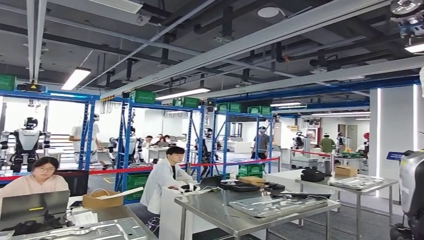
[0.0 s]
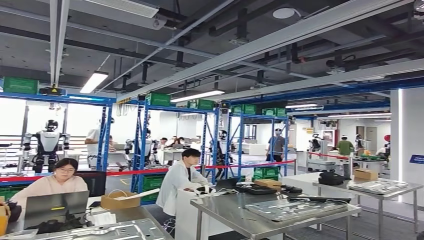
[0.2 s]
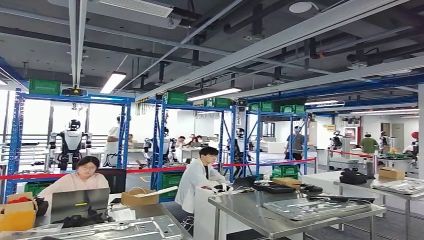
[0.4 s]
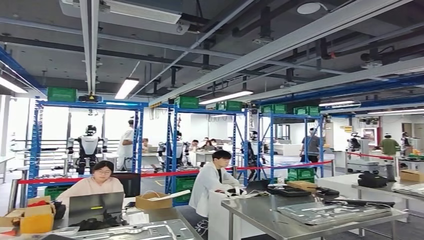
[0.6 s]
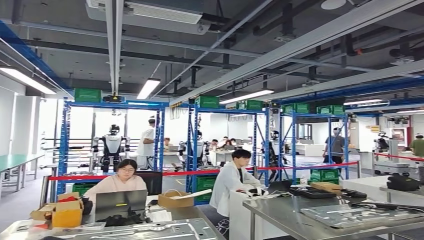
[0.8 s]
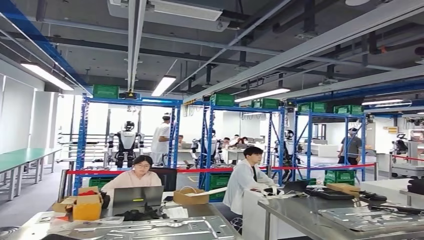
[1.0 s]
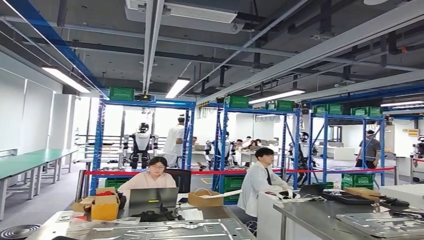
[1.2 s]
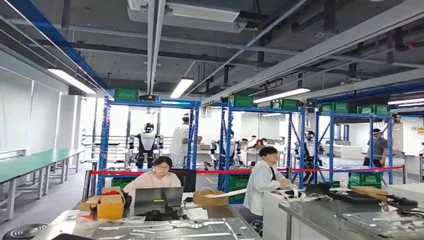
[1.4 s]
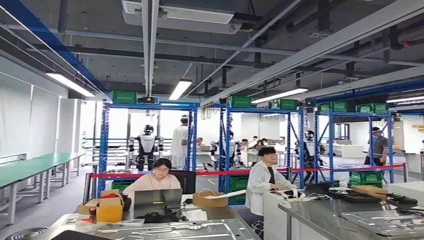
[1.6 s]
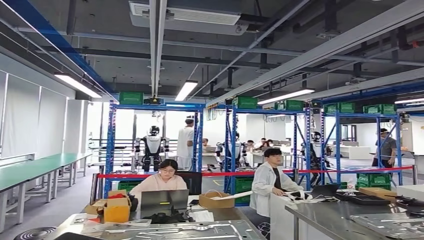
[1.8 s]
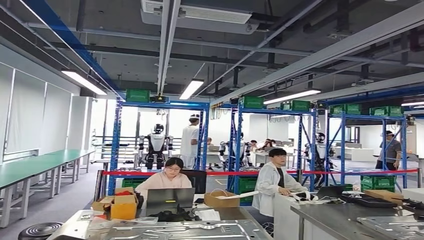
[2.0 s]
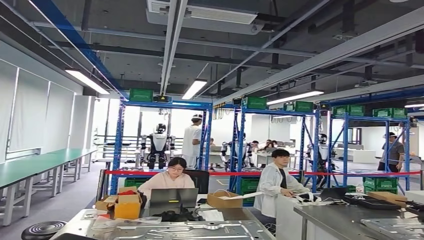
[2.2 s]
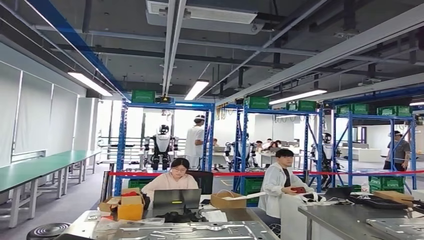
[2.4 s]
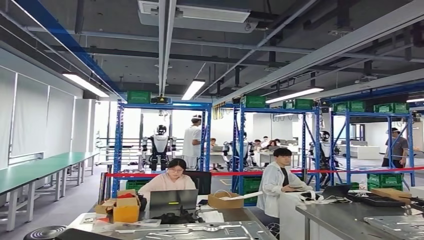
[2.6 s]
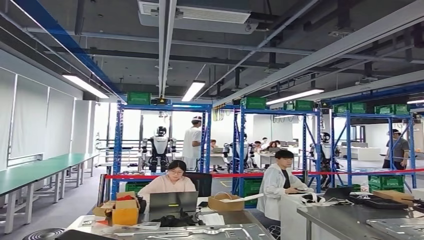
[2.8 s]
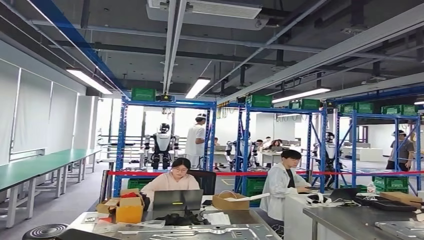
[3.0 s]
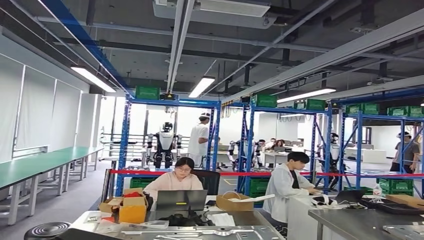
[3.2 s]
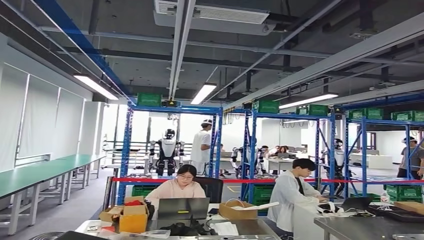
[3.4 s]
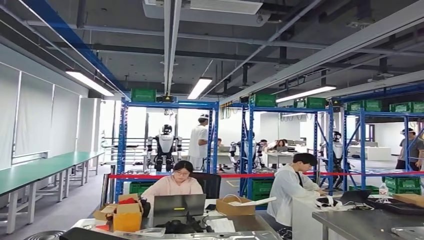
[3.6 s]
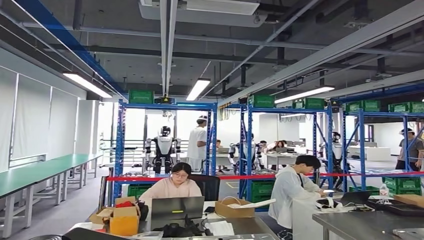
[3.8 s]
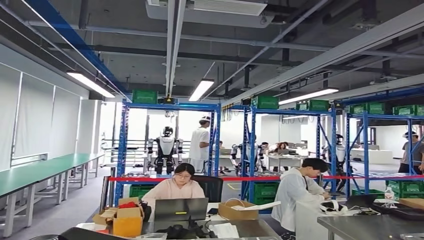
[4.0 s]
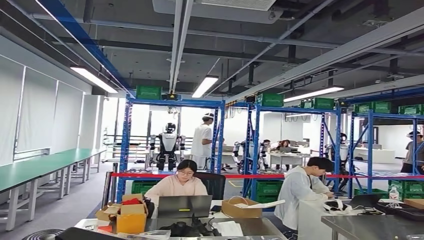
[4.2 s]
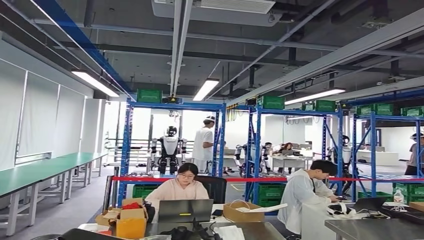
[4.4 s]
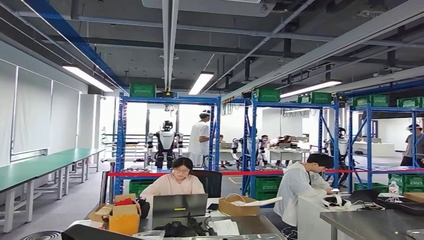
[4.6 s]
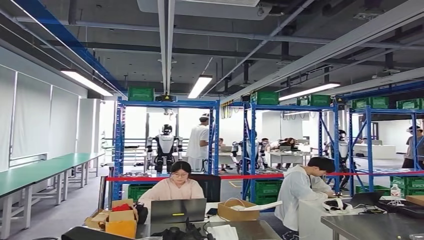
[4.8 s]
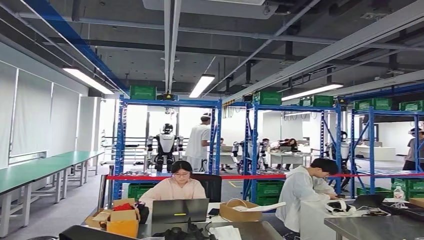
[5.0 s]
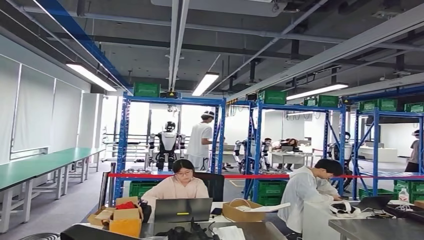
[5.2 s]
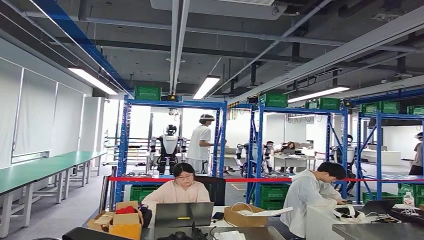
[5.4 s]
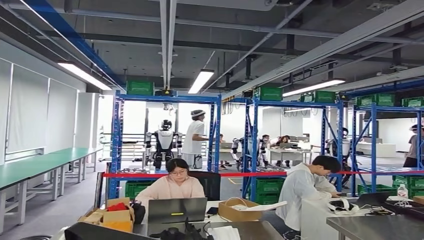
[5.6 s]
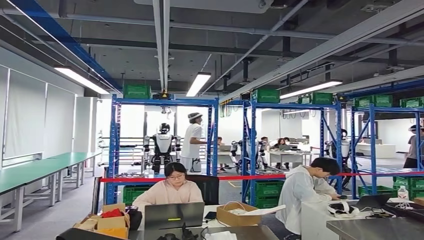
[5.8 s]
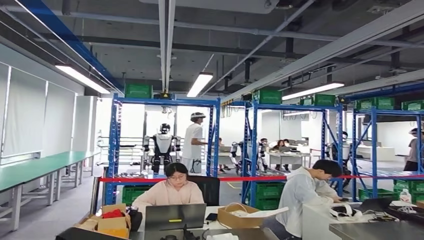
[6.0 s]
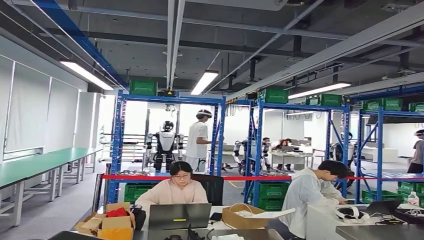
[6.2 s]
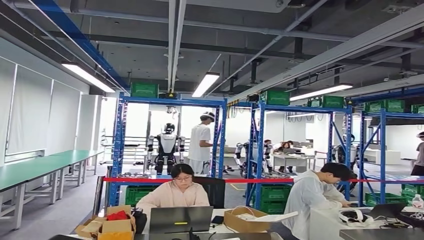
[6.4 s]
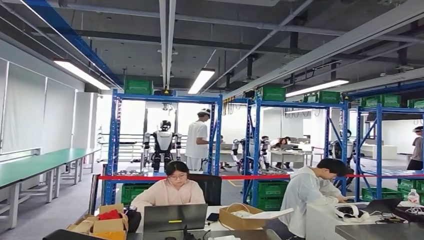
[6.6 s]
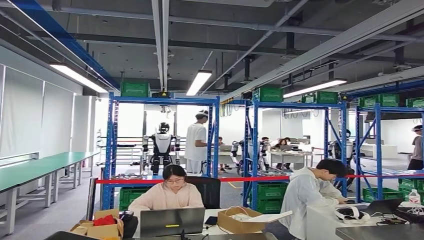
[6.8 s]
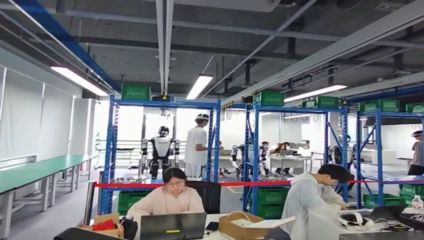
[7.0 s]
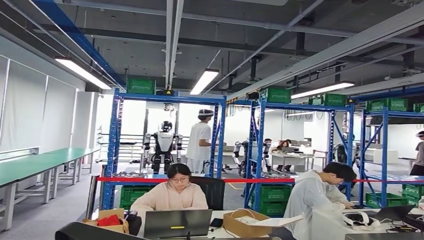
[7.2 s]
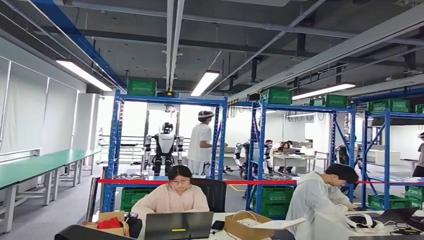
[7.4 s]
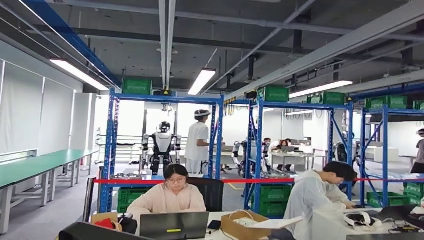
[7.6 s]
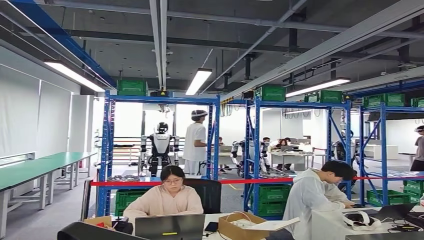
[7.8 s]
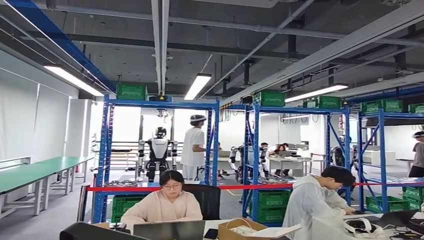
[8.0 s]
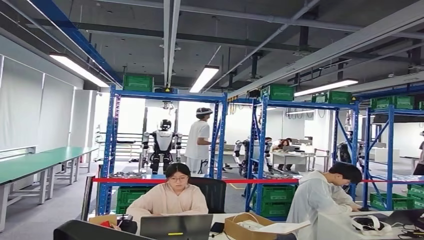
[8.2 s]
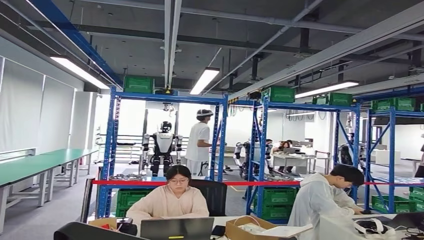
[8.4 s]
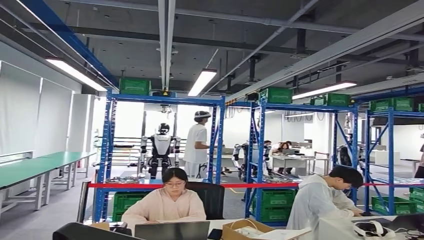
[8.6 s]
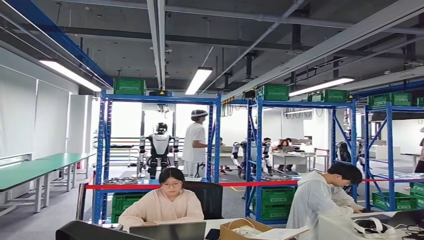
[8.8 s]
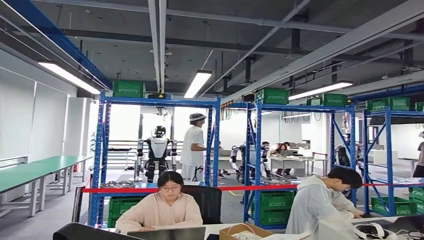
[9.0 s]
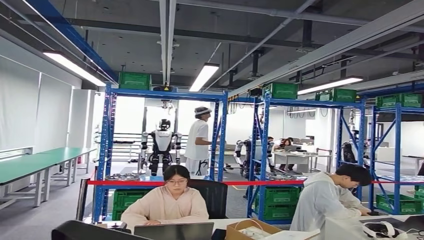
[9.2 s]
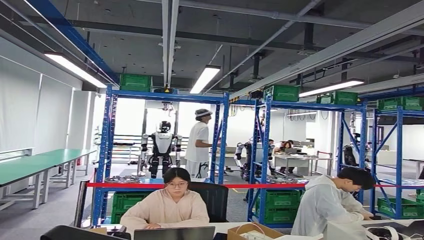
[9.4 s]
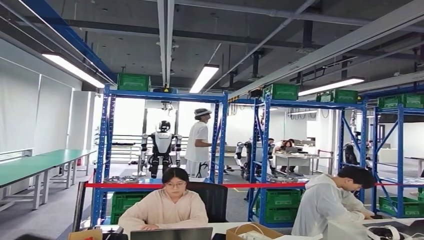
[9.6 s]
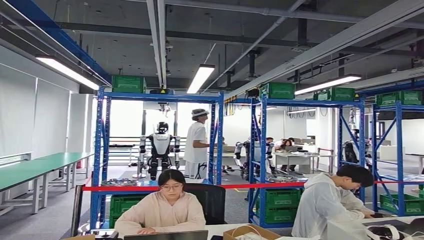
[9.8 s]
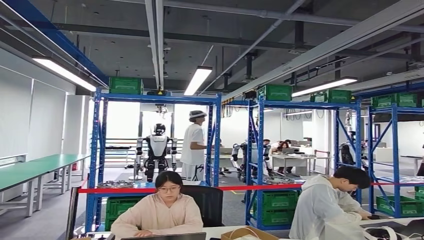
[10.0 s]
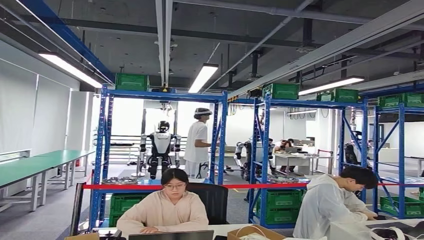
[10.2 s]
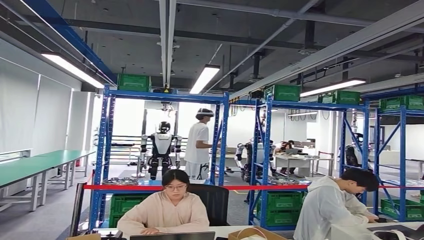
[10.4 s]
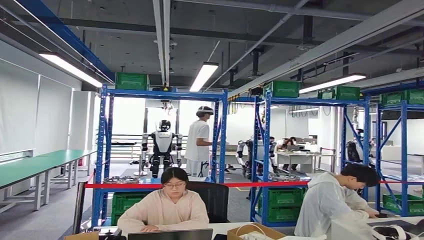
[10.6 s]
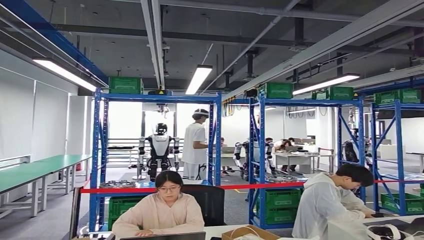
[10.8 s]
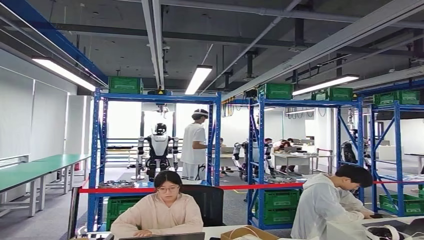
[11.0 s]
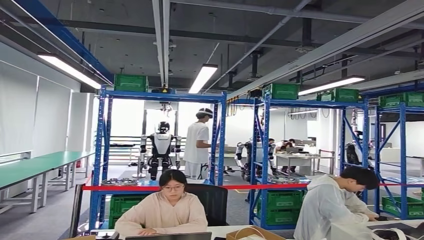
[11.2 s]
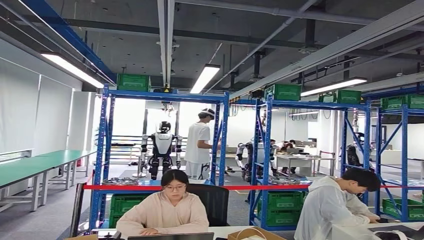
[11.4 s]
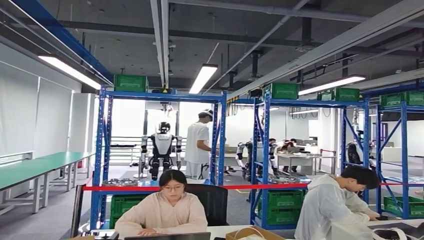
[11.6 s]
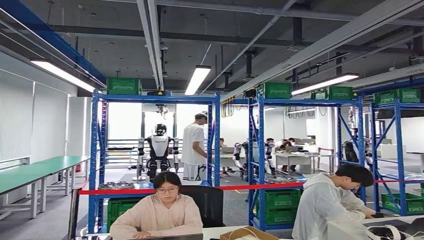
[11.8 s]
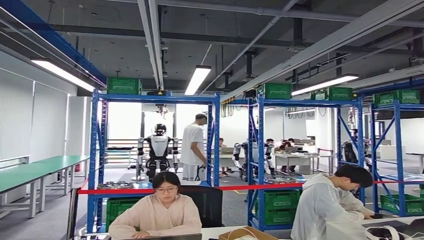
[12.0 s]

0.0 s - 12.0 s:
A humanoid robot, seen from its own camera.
Step, 0.0 s - 10.8 s: Move the small component to the workbench.

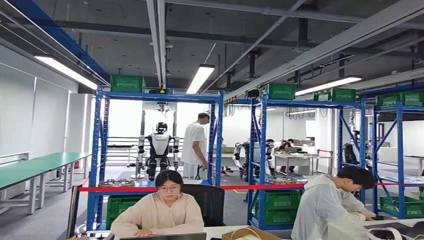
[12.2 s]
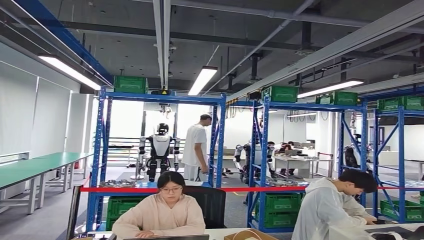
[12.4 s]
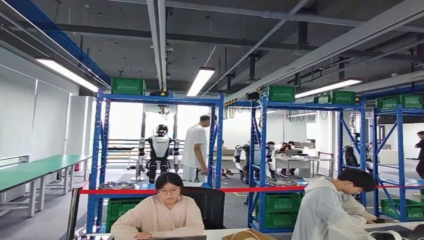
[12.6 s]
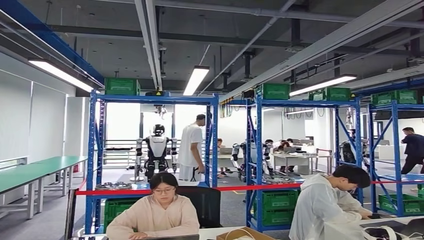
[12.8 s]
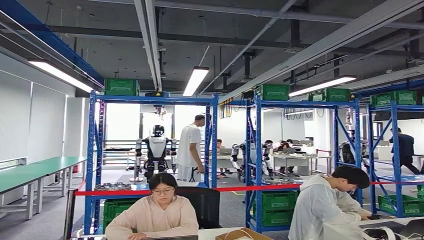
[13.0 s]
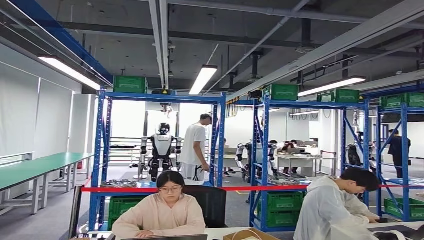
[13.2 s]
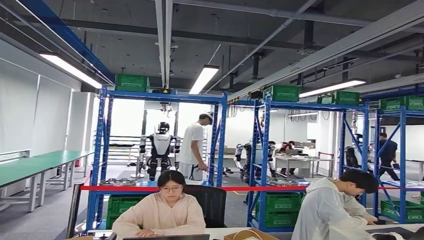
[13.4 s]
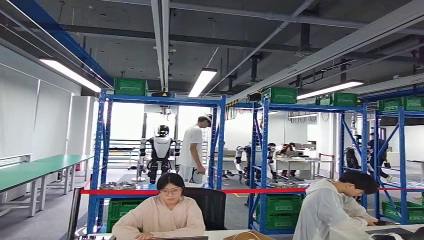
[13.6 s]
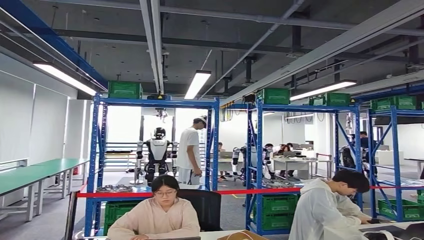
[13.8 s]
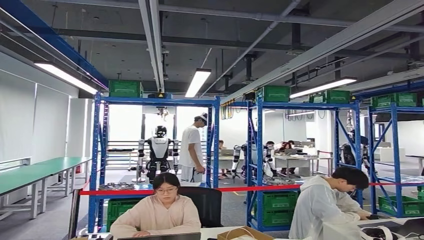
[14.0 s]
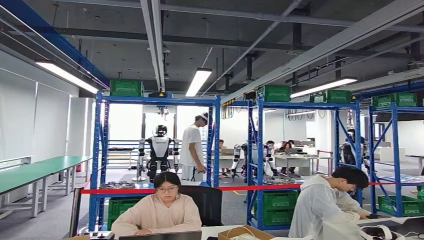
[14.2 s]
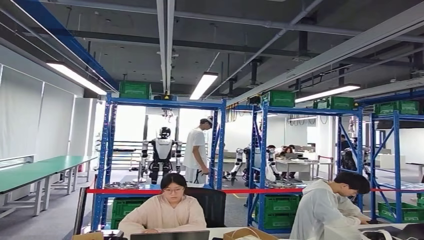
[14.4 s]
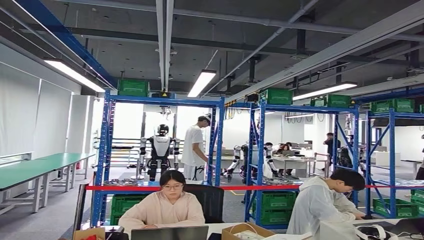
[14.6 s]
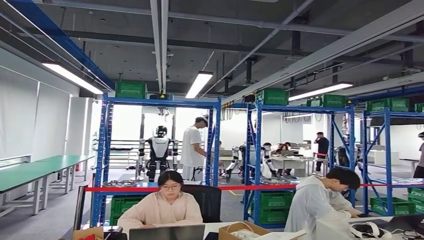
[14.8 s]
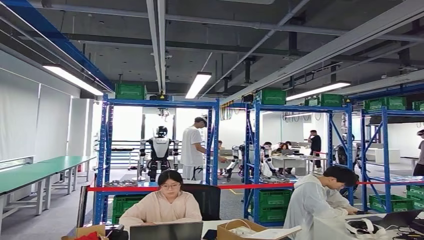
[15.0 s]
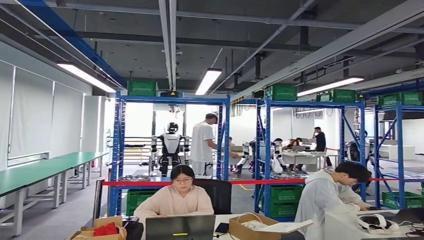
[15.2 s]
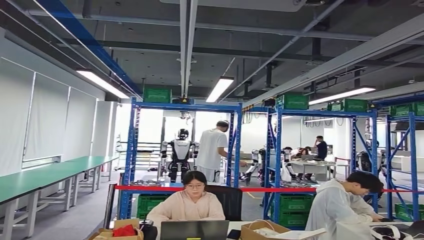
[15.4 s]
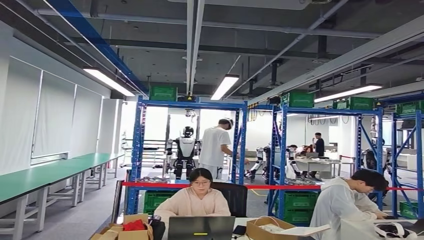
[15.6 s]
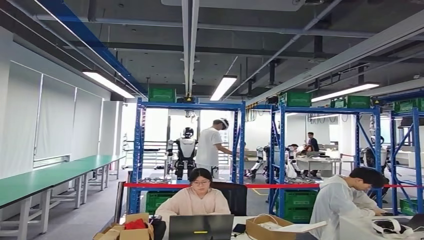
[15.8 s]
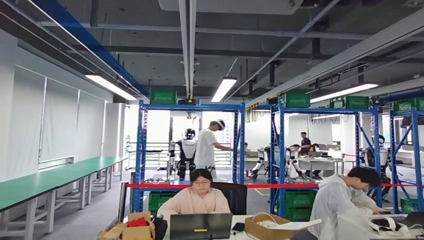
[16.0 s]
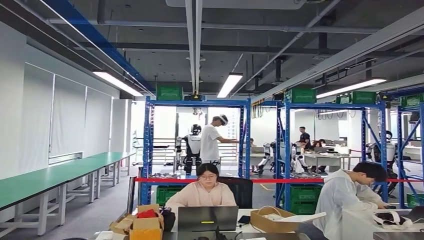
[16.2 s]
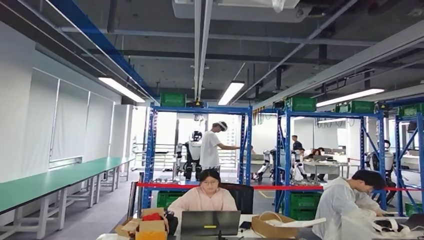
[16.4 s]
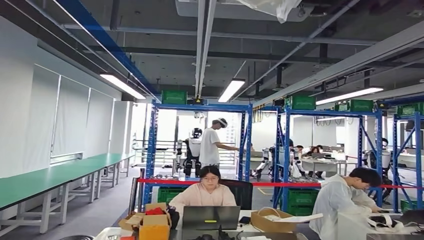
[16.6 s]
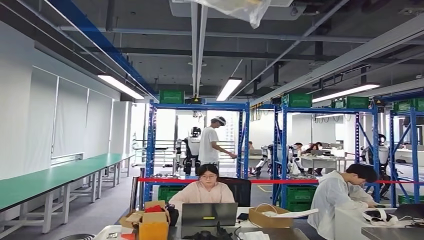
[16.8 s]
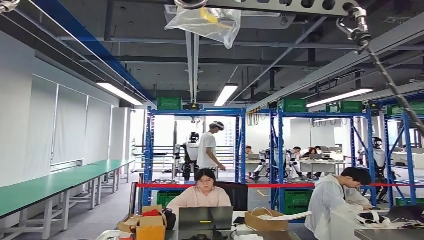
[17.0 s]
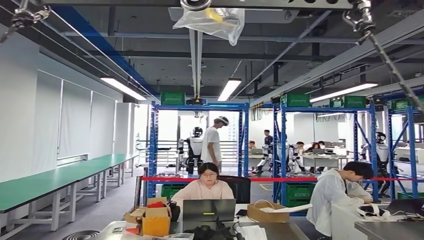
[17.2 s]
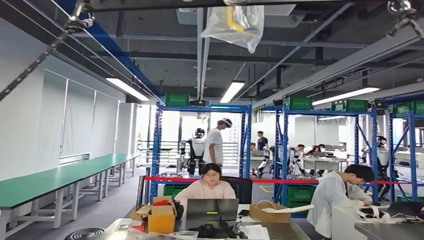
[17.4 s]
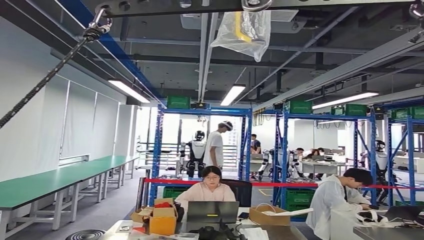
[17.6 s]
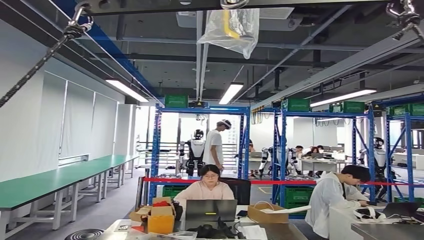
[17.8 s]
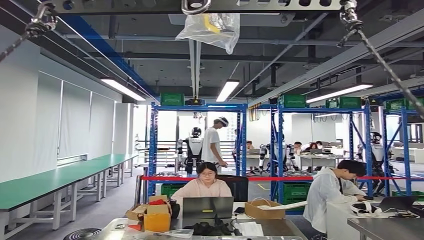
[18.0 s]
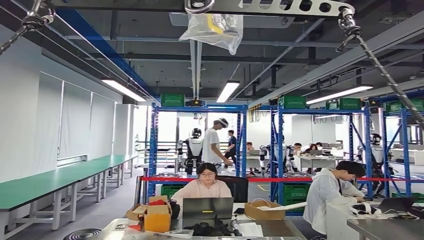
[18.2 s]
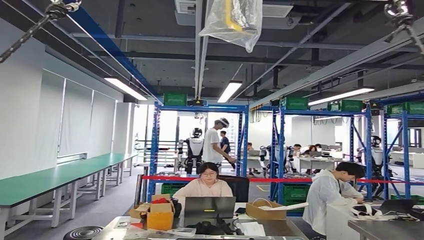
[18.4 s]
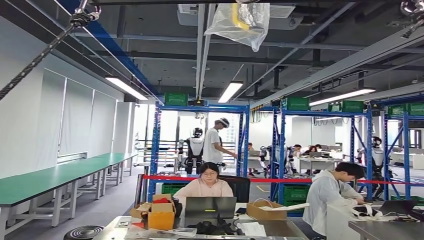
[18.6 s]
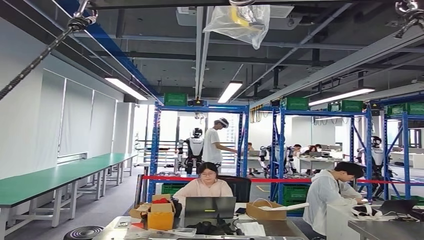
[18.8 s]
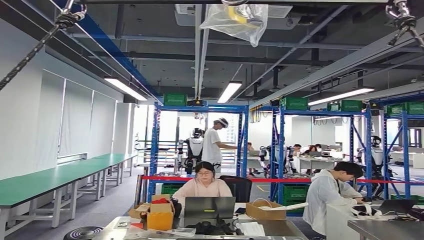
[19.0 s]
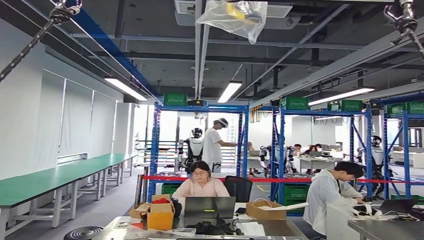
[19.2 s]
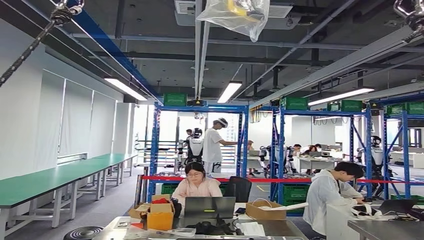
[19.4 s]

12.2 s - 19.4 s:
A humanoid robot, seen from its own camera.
Step, 12.2 s - 15.0 s: Insert the small component into the corresponding slot on the workbench.
Step, 15.2 s - 19.4 s: Return to the initial position at the workbench.
